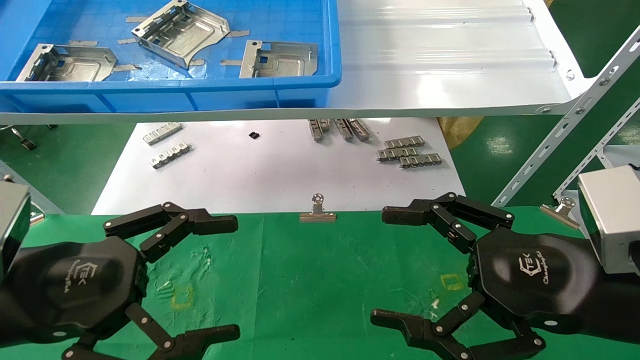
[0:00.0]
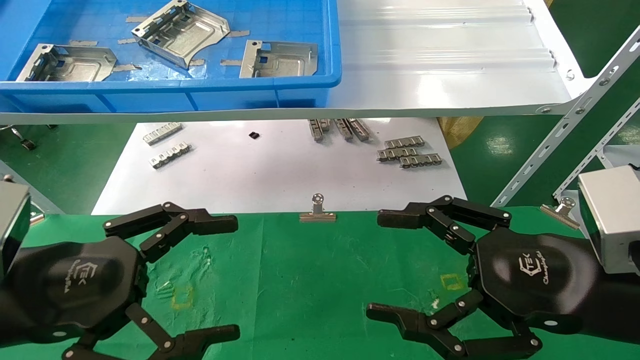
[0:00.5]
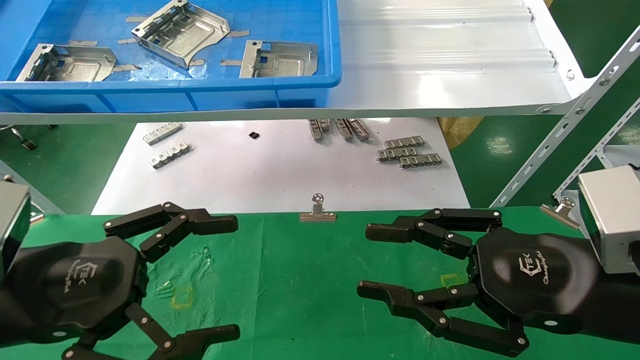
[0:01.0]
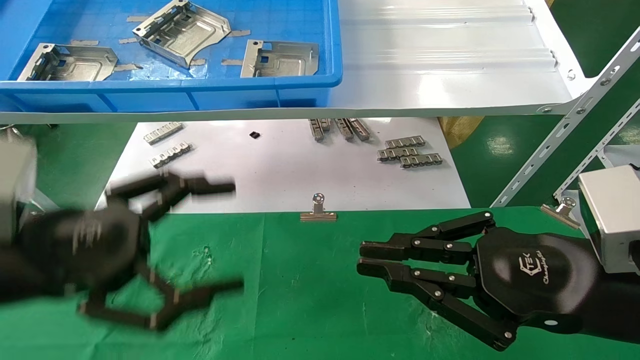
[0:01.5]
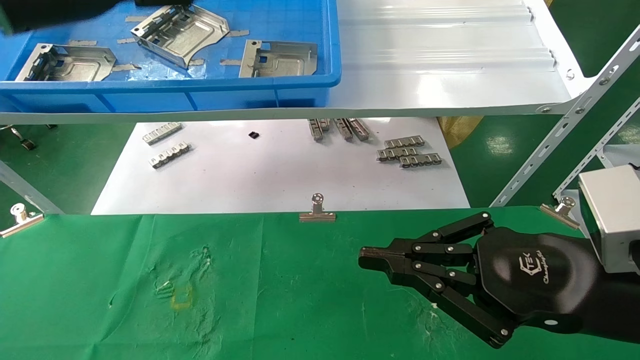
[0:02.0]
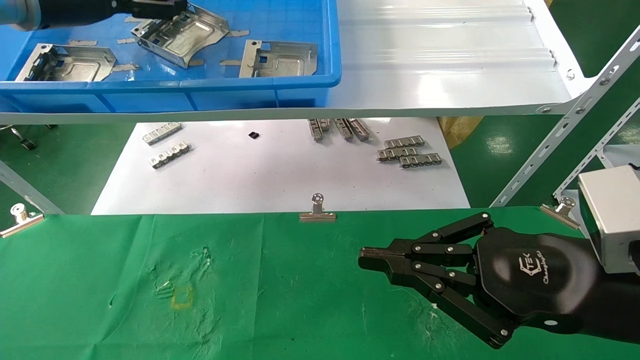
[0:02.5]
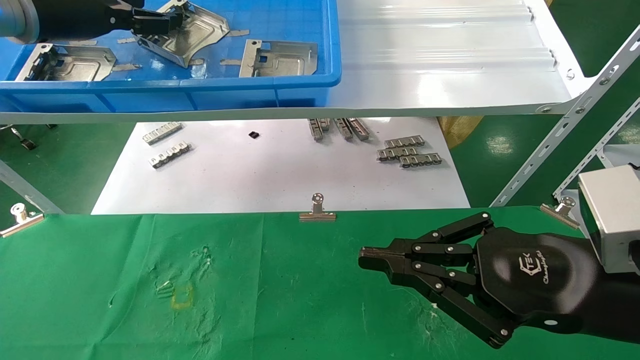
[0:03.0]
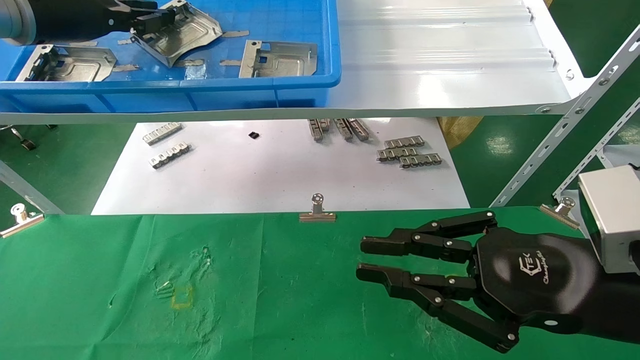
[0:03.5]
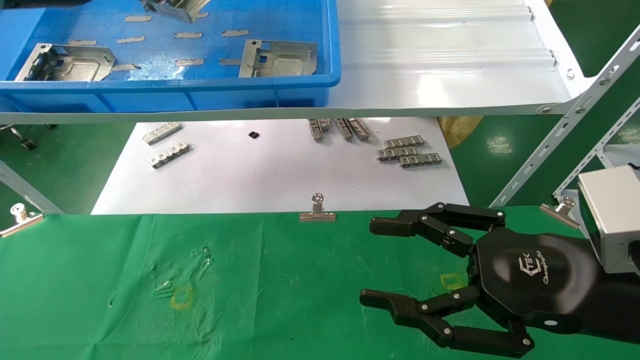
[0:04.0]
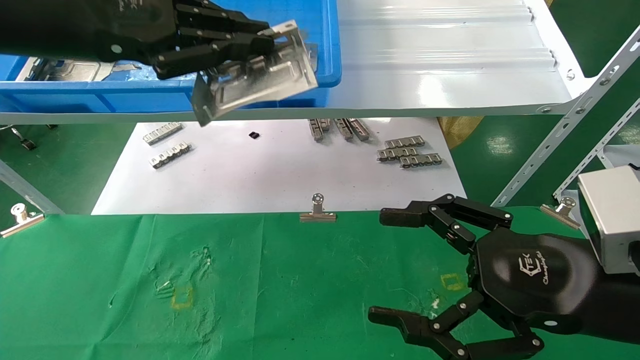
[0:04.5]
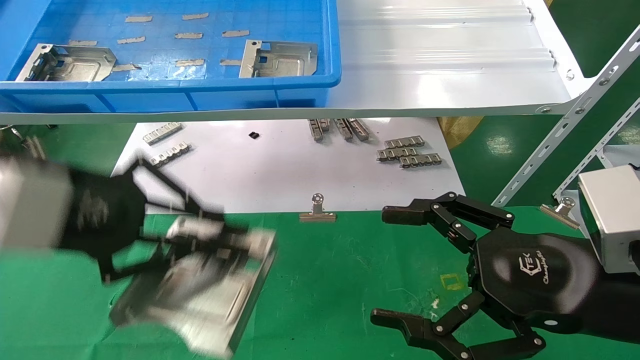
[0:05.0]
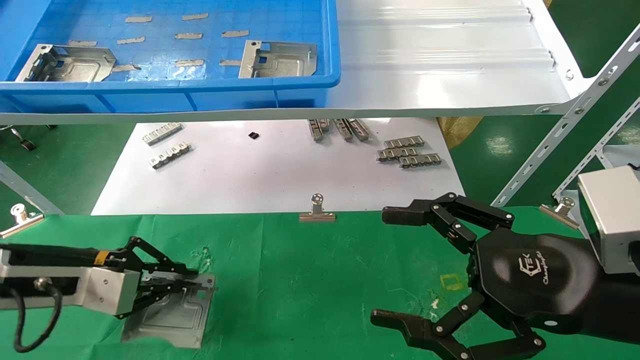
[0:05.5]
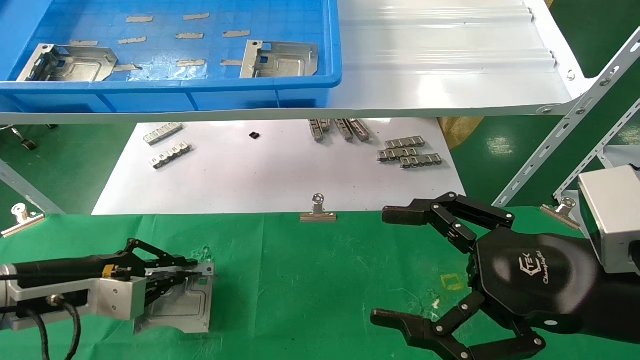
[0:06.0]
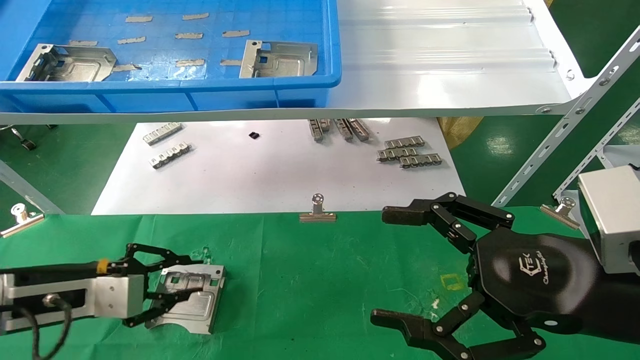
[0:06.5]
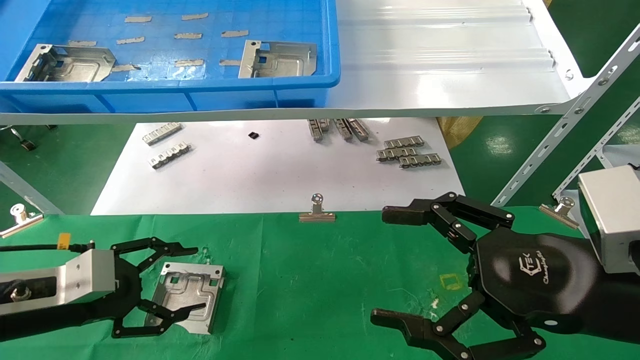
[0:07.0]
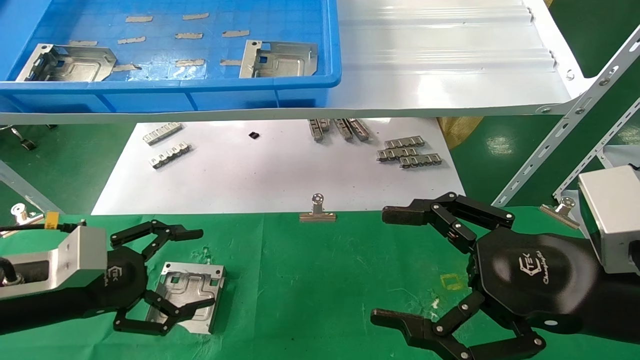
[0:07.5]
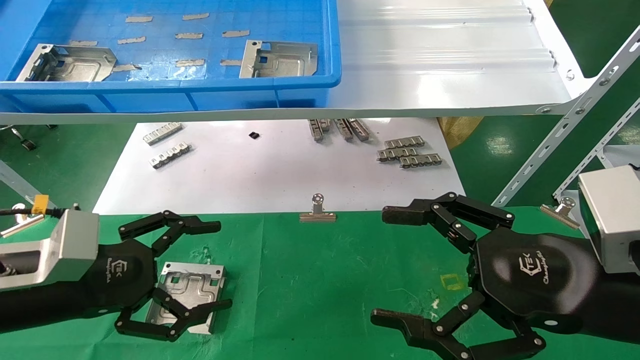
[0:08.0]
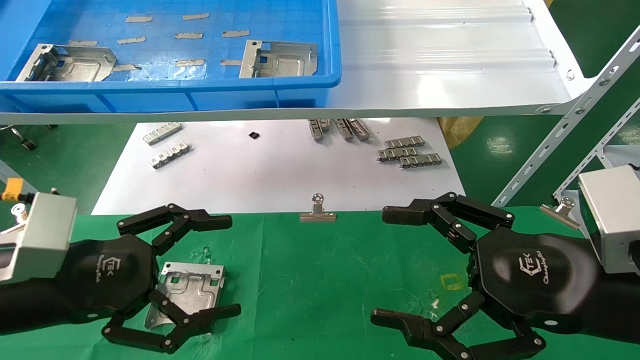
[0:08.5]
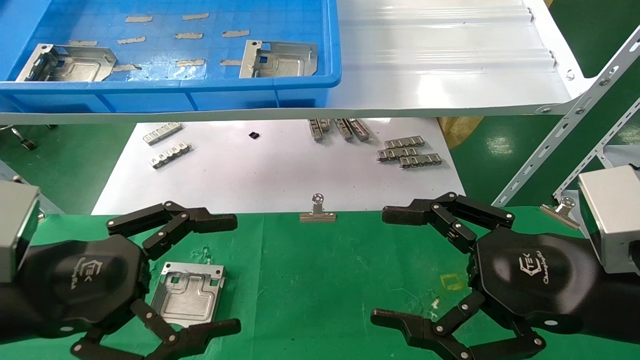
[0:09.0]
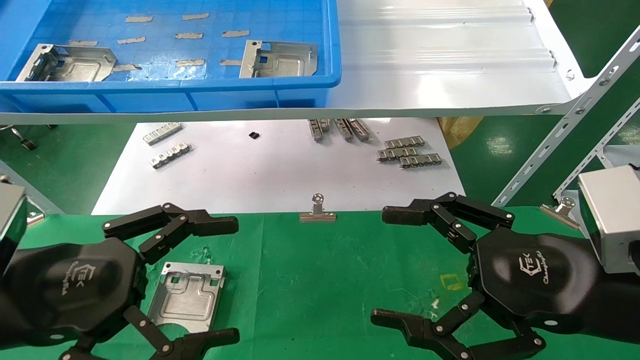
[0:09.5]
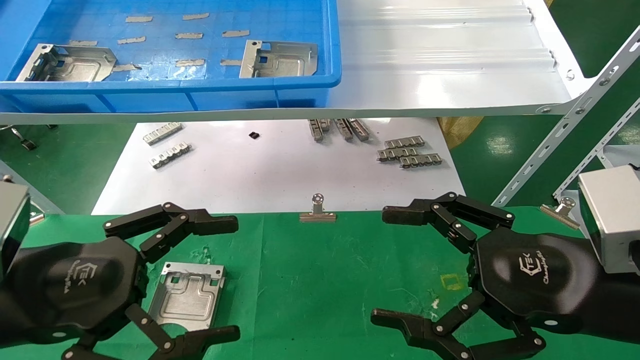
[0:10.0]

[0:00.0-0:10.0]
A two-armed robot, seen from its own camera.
Task of the whole recording: use the mechanical arm to pick up the parts and place them on the table.
Step, 0:02.0 to 0:03.5: Pick up the hard drive bracket from the feeding area.
Step, 0:04.0 to 0:06.0: Place the hard drive bracket into the box.
0:00.0 to 0:02.0: The right gripper closes; the left gripper shifts about 30 cm upward and forward.
0:02.0 to 0:04.0: The right gripper opens. Meanwhile the left gripper closes up.
0:04.0 to 0:06.0: The left gripper moves downward, some 35 cm, while the right gripper opens up.
0:06.0 to 0:08.0: The left gripper moves backward, roughly 5 cm, and opens.
0:08.0 to 0:10.0: The left gripper travels backward by some 5 cm.
